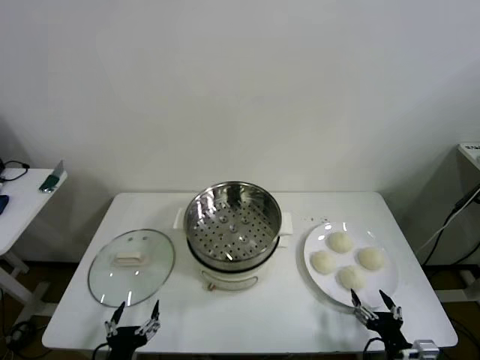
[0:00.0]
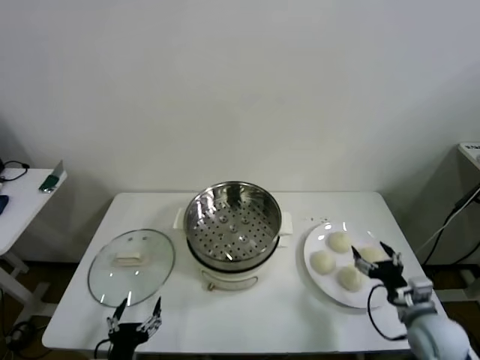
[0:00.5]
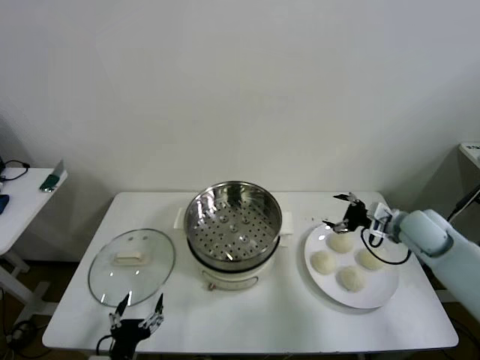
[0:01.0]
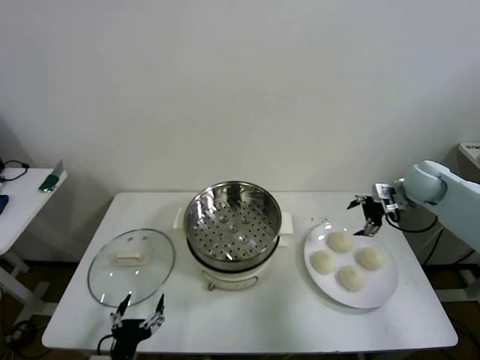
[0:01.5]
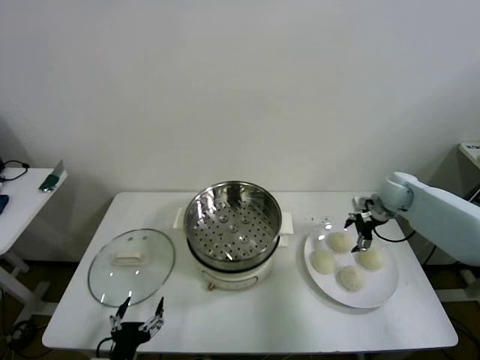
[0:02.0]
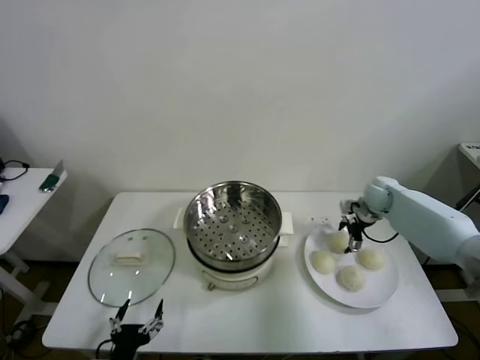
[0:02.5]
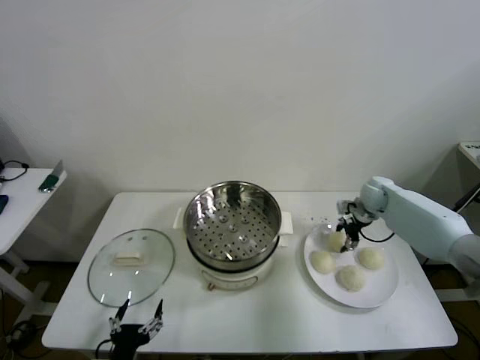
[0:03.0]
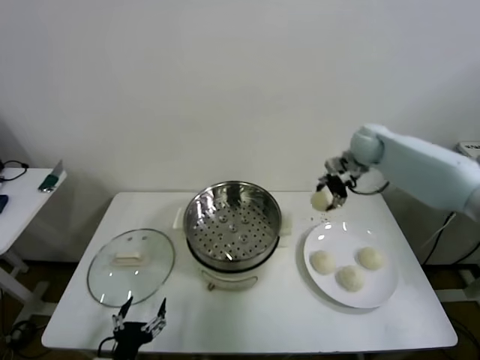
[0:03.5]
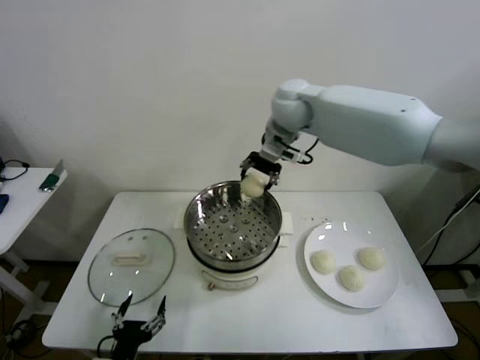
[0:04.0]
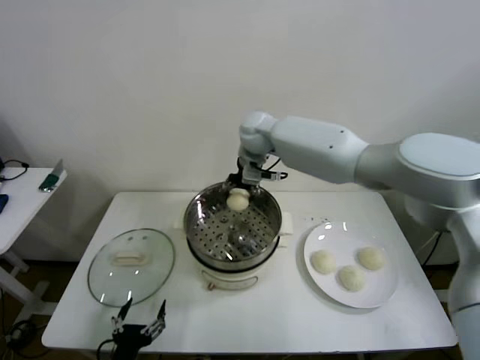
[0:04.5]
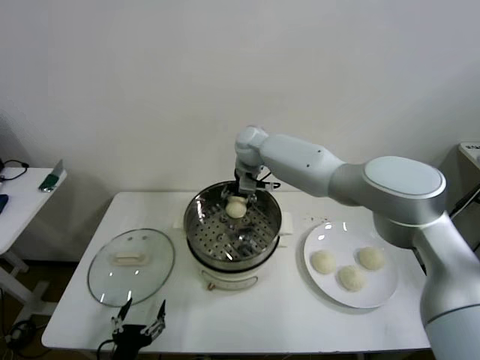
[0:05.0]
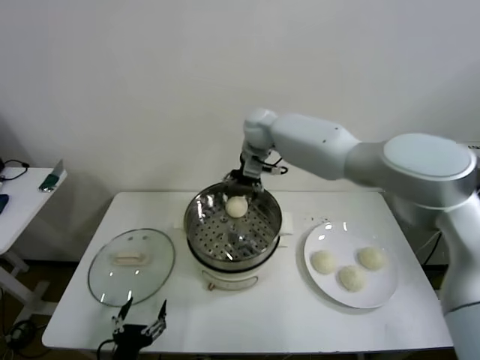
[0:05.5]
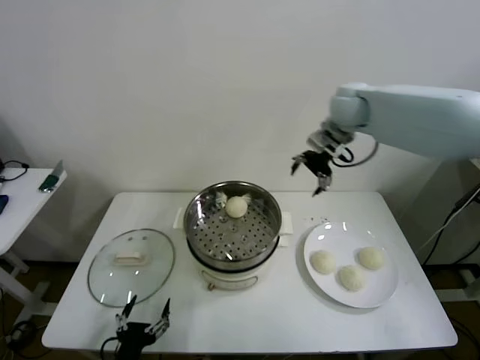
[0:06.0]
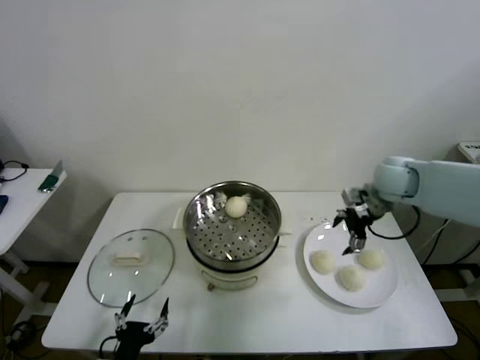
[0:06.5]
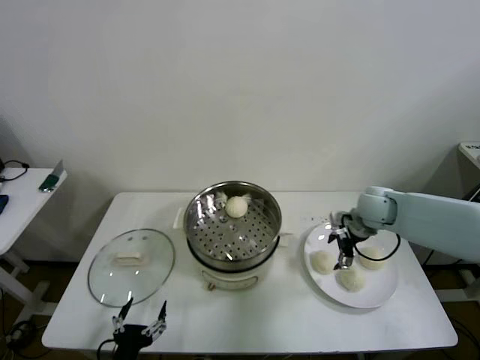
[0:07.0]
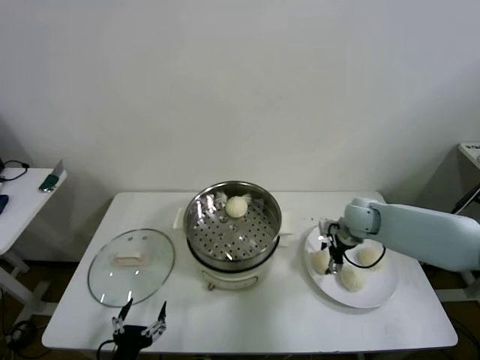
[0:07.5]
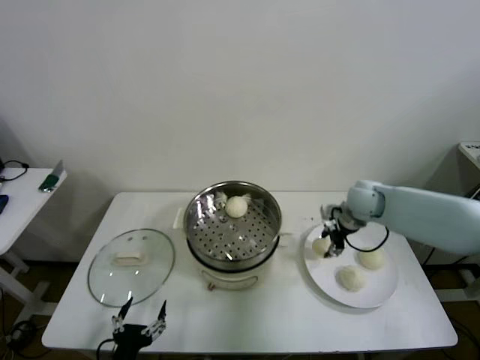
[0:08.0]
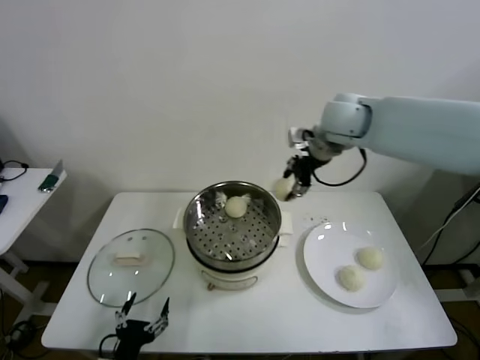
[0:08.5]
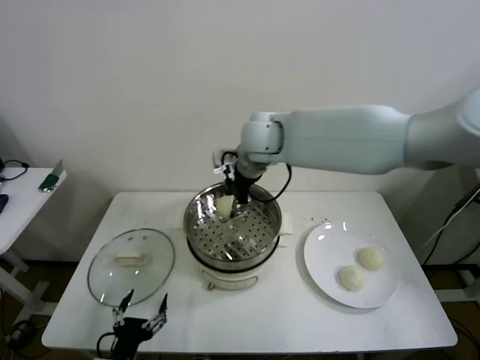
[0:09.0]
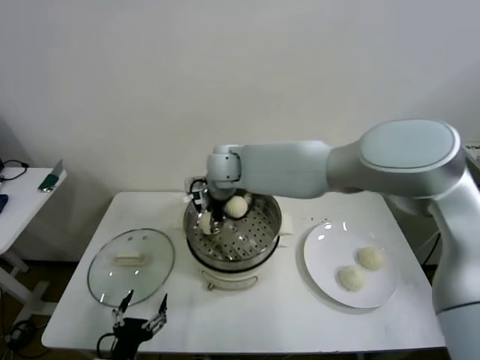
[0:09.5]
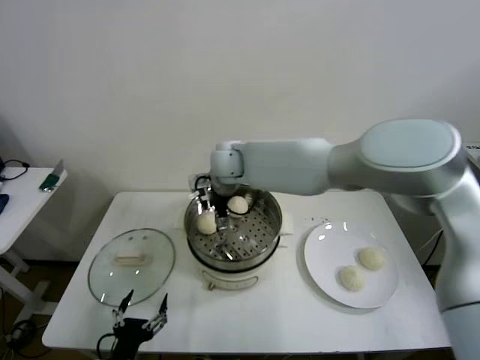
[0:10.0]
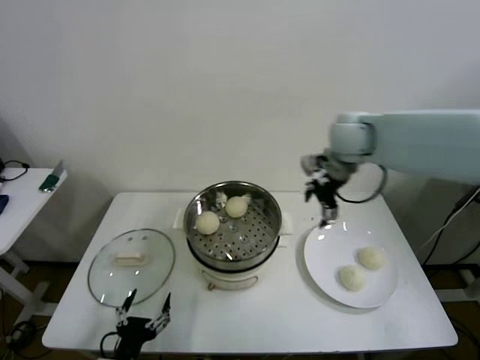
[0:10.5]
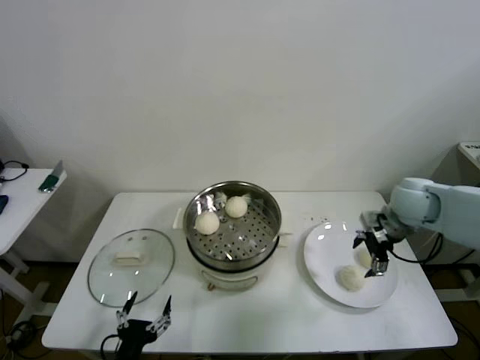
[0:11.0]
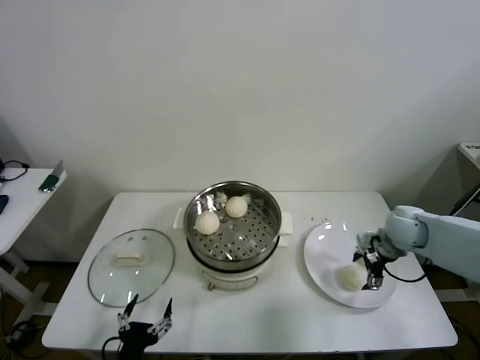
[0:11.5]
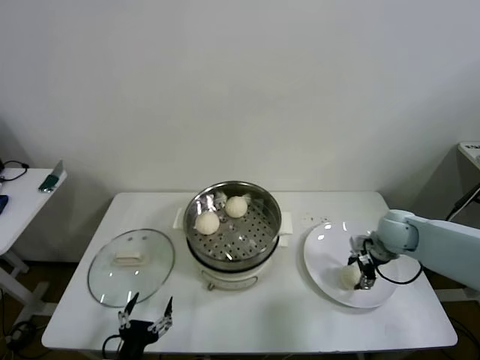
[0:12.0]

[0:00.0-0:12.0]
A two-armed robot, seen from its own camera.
Step, 0:00.0 to 0:02.5: Grasp the baozi in the plate with right gripper.
Step, 0:03.0 to 0:05.0: Place the baozi on the steamer with right gripper.
Step, 0:05.5 to 0:07.5: Grasp the baozi in the plate with right gripper.
Step, 0:08.0 to 0:09.5: Place the baozi on the steamer with right gripper.
Step, 0:10.0 to 0:11.5: Grasp the baozi in the plate with right gripper.
0:02.0 to 0:04.0: The right gripper goes about 40 cm to the left and upward, and closes up.
0:04.0 to 0:06.0: The right gripper is displaced to the right by about 20 cm, and opens its fingers.
0:06.0 to 0:08.0: The right gripper moves downward, some 15 cm, and closes.
0:08.0 to 0:10.0: The right gripper goes about 30 cm to the left, and opens.
0:10.0 to 0:12.0: The right gripper heads to the right and downward, covering roughly 40 cm, and closes its fingers.

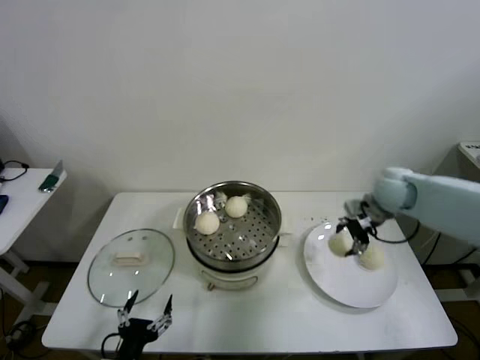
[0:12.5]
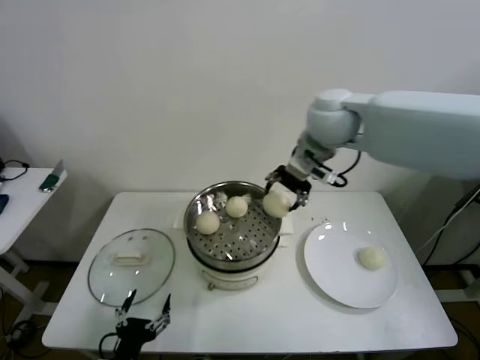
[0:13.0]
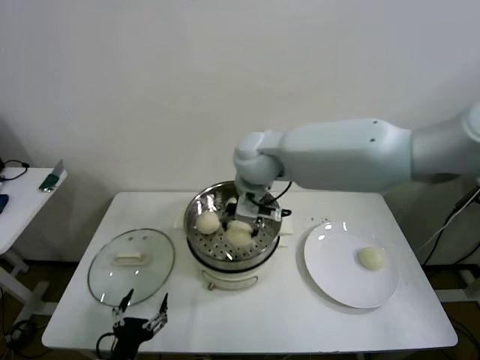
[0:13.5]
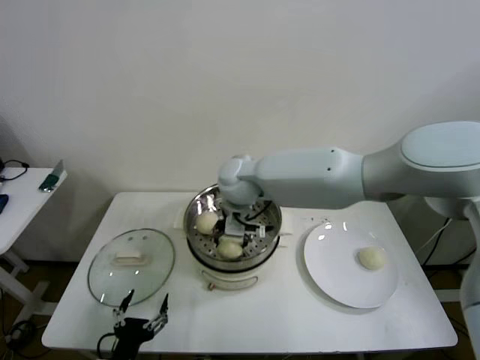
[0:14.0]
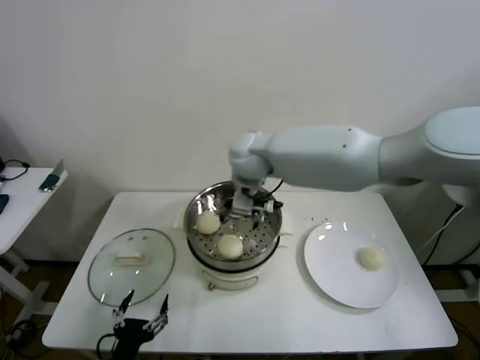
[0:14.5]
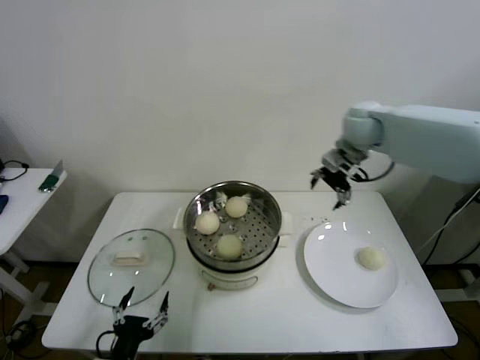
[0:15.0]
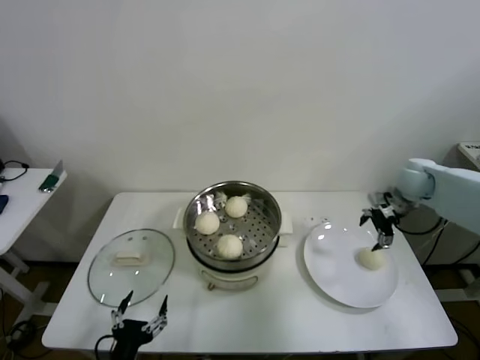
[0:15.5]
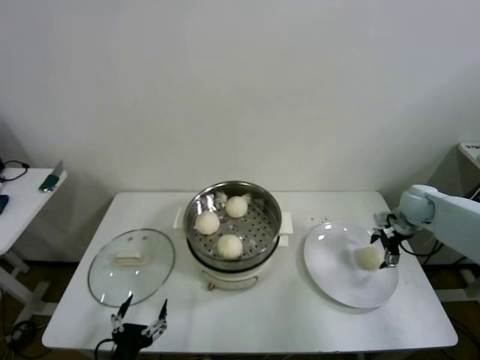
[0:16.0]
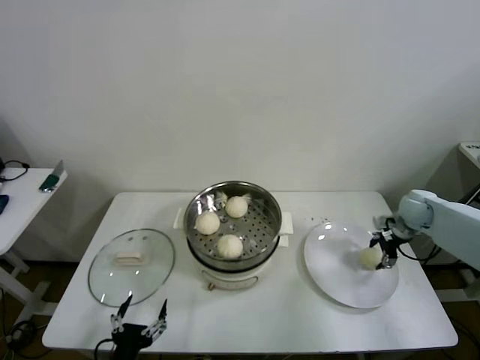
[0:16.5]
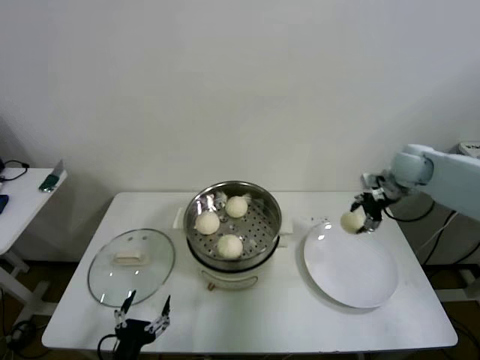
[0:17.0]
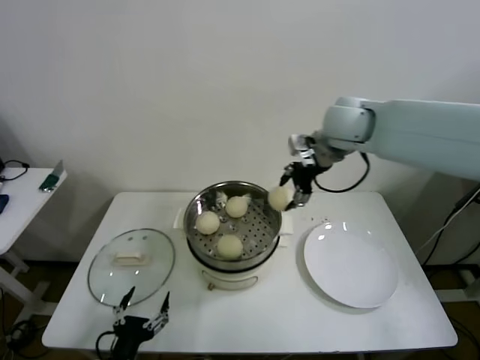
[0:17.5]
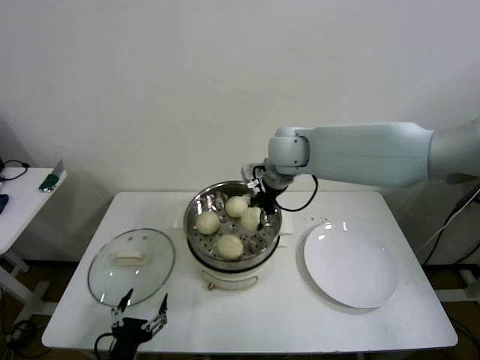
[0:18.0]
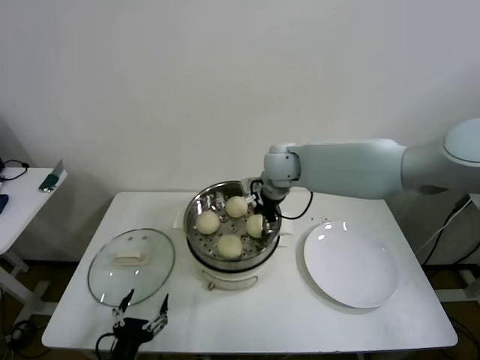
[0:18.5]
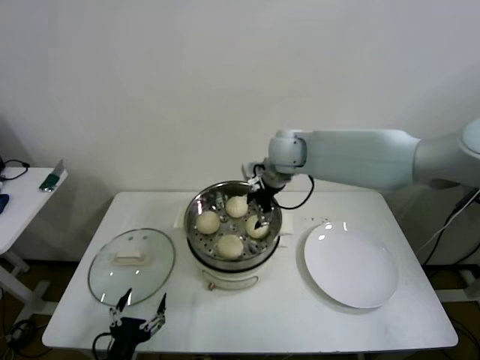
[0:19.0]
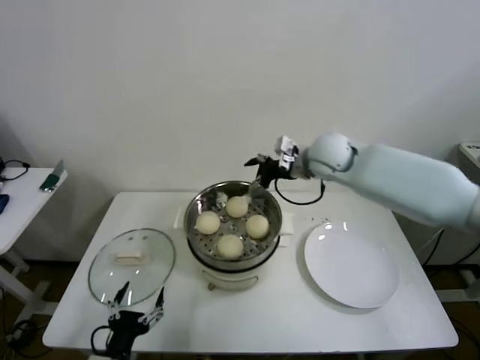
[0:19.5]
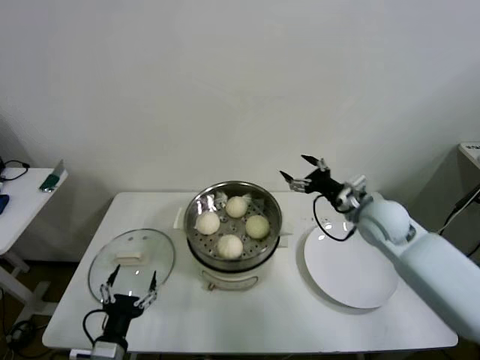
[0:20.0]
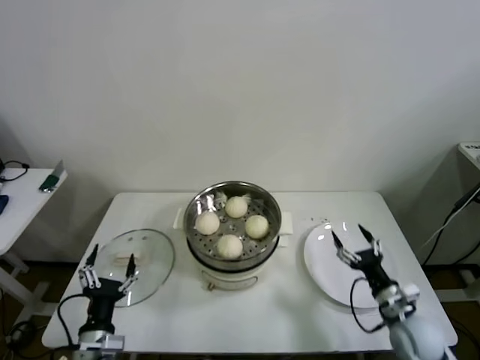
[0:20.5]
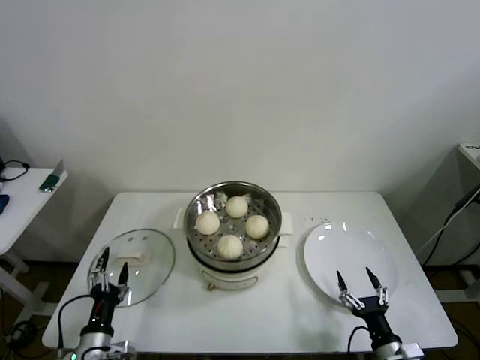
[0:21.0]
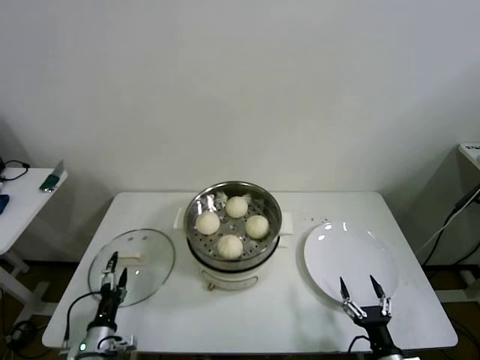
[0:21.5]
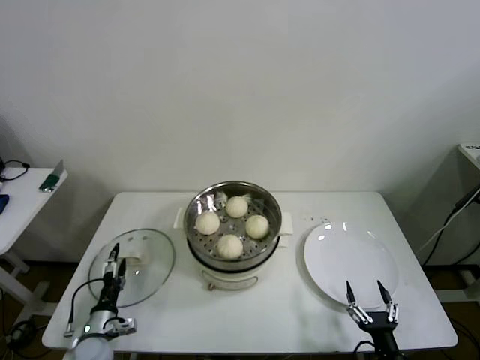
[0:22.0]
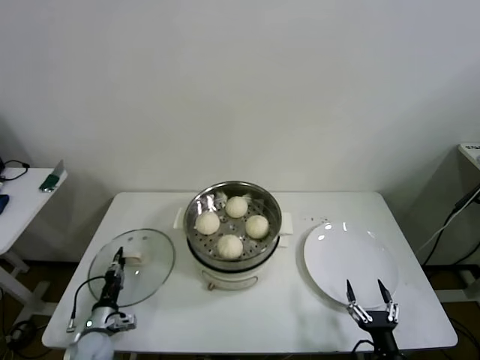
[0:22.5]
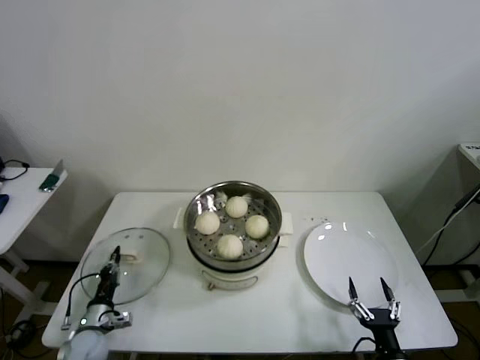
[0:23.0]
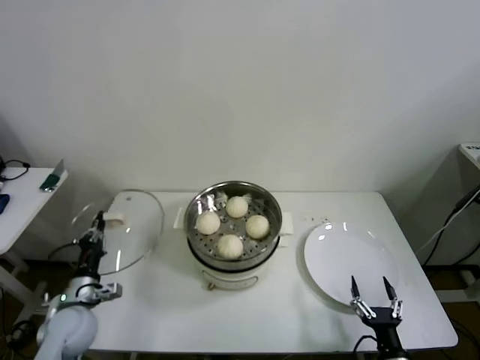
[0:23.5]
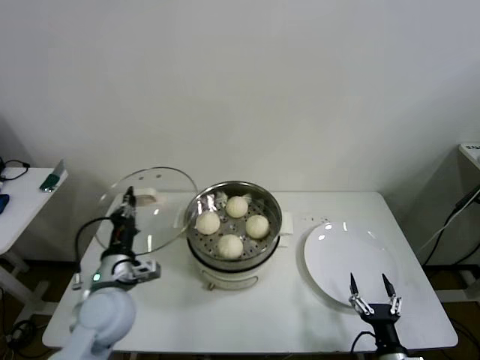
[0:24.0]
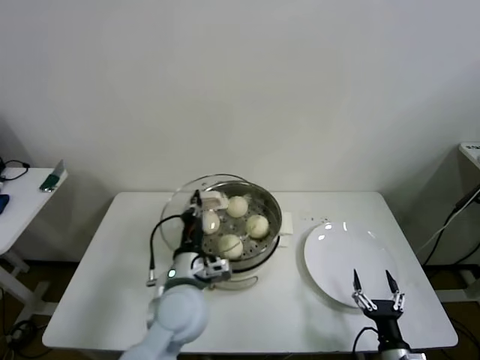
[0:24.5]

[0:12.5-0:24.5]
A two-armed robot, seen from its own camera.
Step, 0:12.5 to 0:14.0: Place the baozi on the steamer with right gripper.
Step, 0:14.5 to 0:16.0: Grasp the baozi in the plate with right gripper.
Step, 0:16.5 to 0:18.5: Place the baozi on the steamer with right gripper.
Step, 0:19.0 to 0:22.5: Grasp the pot lid with left gripper.
0:12.5 to 0:14.5: The right gripper shifts some 30 cm to the left, and opens up.
0:14.5 to 0:16.5: The right gripper goes some 50 cm to the right and downward, and closes.
0:16.5 to 0:18.5: The right gripper moves to the left, about 35 cm.
0:18.5 to 0:20.5: The right gripper heads backward, to the right and downward, covering approximately 50 cm, and opens up; the left gripper is displaced forward by about 5 cm.
0:20.5 to 0:22.5: The right gripper travels backward and downward by roughly 15 cm. The left gripper heads downward, forward and to the left, covering roughly 20 cm, and closes up.
0:22.5 to 0:24.5: The left gripper shifts about 35 cm to the right and upward, and closes.

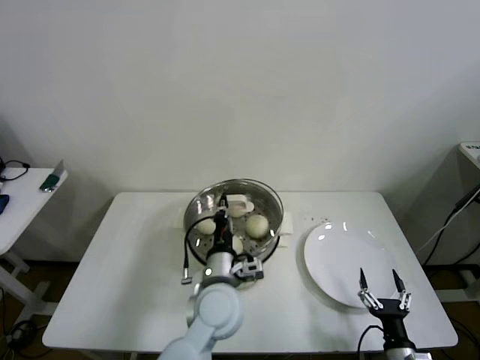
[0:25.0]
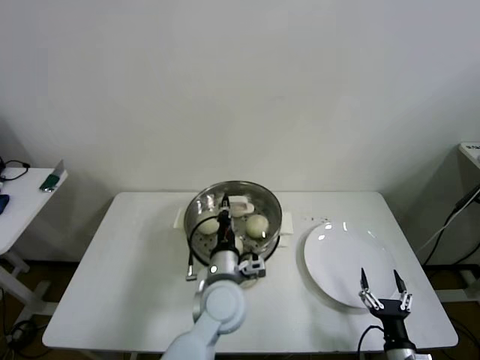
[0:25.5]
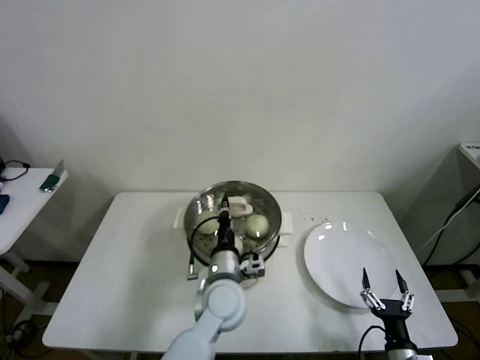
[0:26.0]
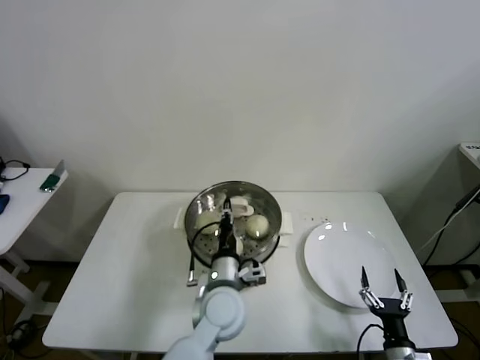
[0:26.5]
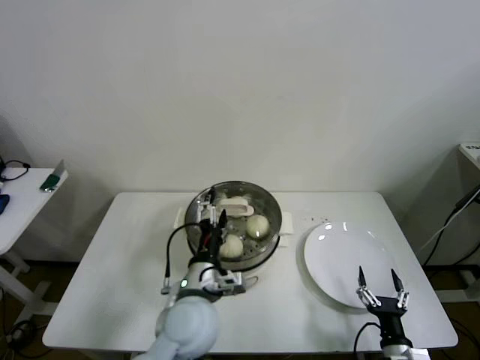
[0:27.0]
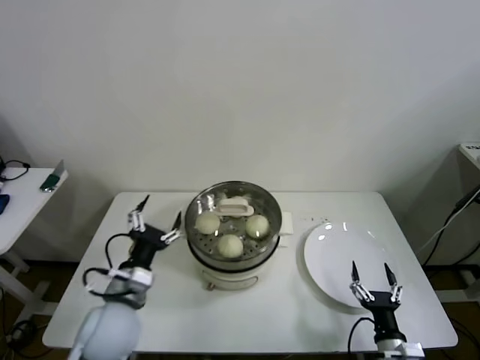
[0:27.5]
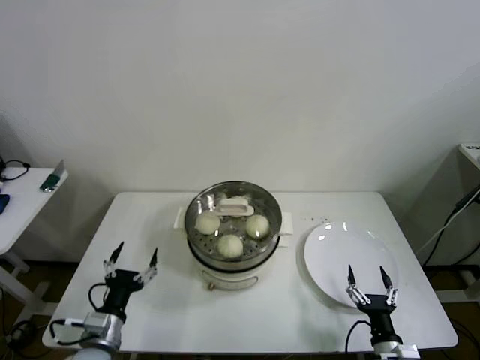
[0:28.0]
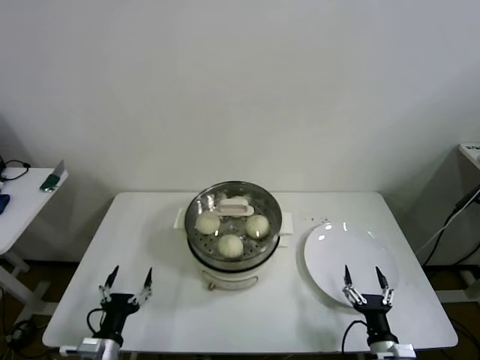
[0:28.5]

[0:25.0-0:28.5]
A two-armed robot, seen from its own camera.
0:25.0 to 0:27.0: The left gripper opens up.
0:27.0 to 0:28.5: The left gripper moves to the left, downward and backward, roughly 30 cm.
